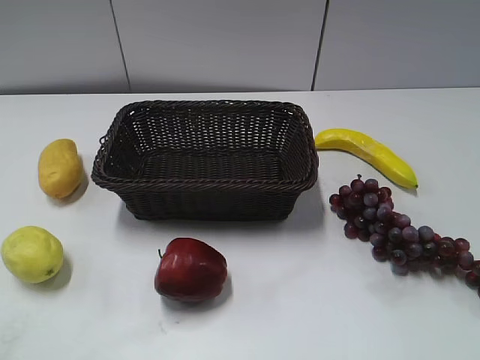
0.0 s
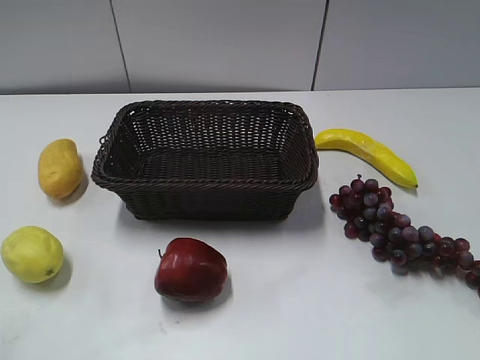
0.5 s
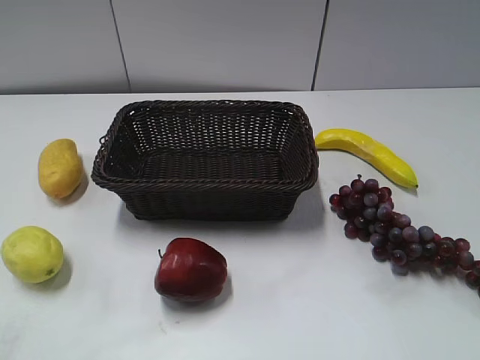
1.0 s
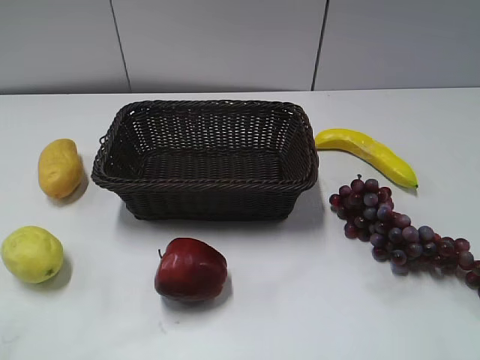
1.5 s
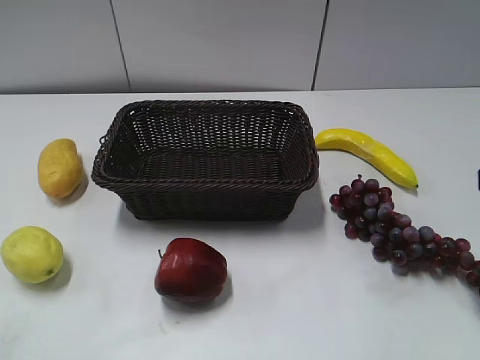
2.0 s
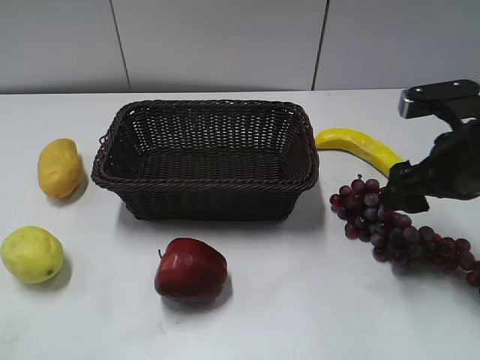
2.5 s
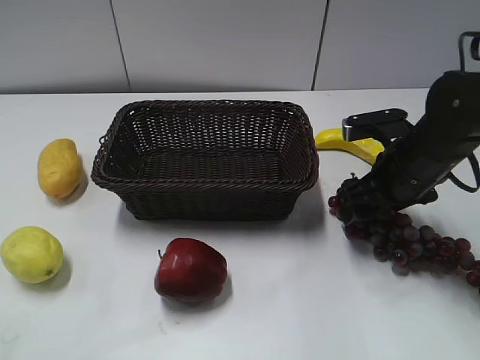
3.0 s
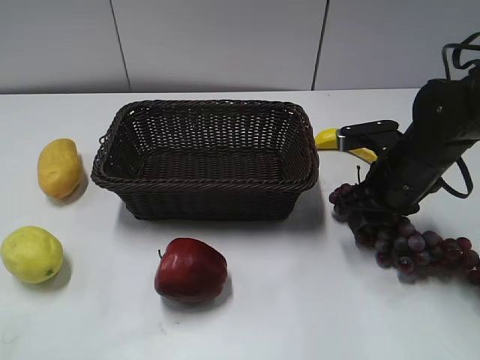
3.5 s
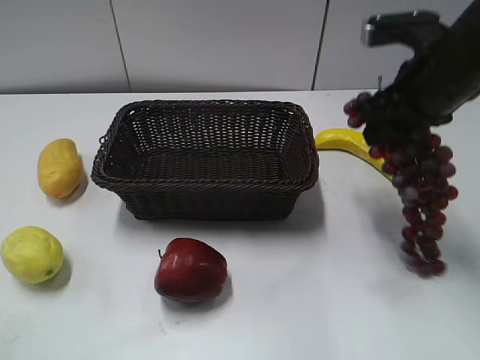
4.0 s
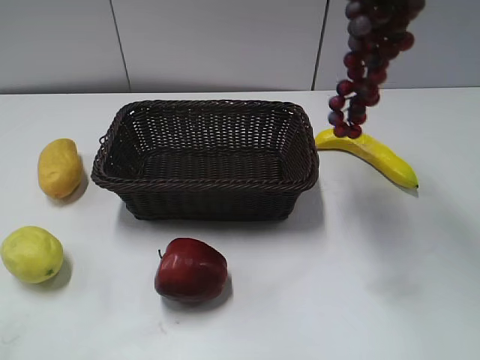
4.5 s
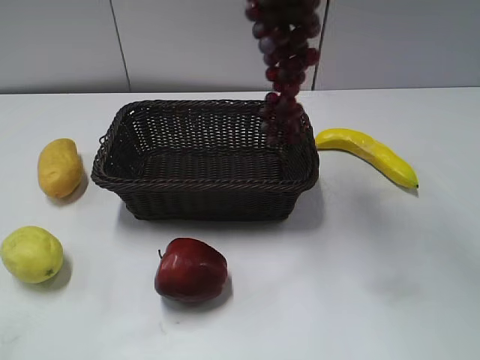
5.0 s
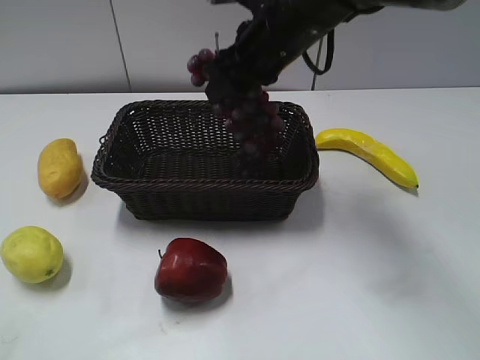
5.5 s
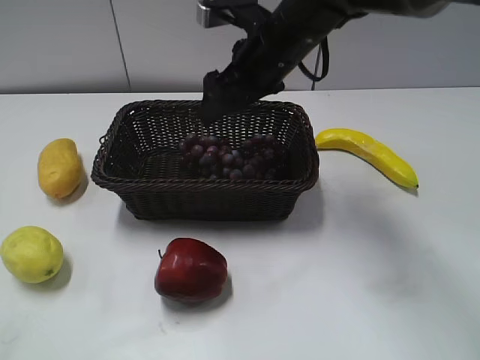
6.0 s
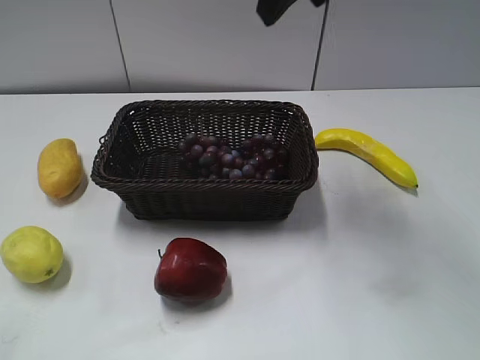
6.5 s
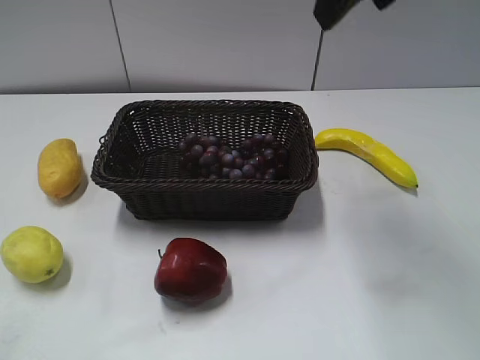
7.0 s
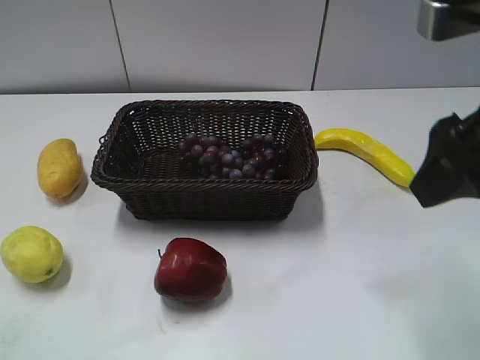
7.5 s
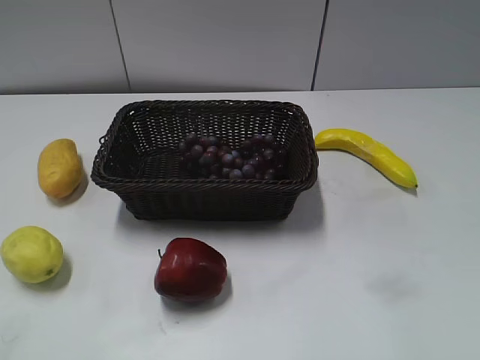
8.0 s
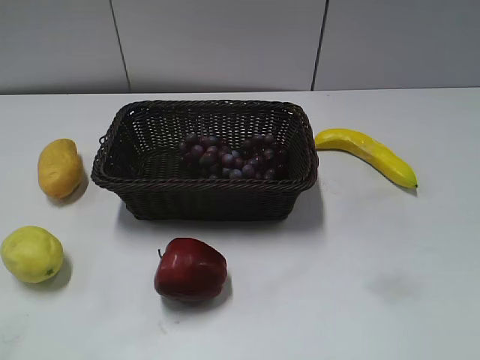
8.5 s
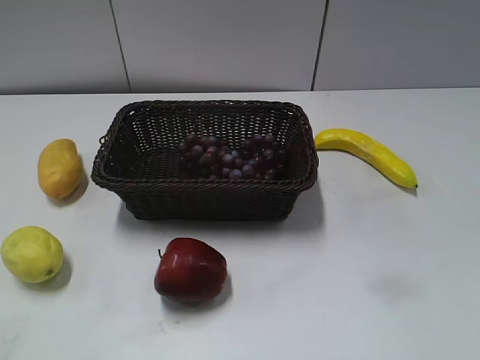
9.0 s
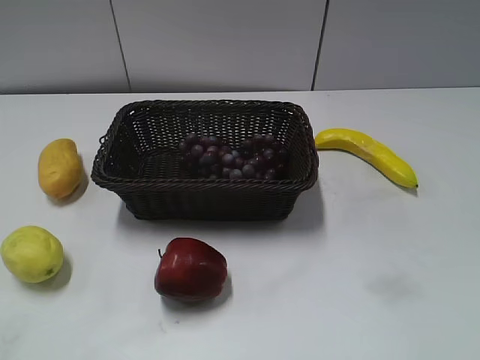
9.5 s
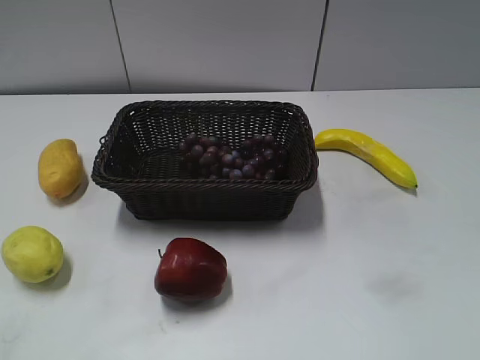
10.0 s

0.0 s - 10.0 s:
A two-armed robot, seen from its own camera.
Step, 2.0 s - 3.5 s: Grasp the grape with right gripper.
Step, 4.0 s - 6.0 s: Place the grape in the basket with right gripper.
2.0 s - 4.0 s: The right gripper heads forward and to the left, covering roughly 20 cm, and closes up.
4.0 s - 6.0 s: The right gripper is displaced to the left and forward by approximately 15 cm, moves about 15 cm upward and comes back, and opens its fingers.
6.0 s - 8.0 s: The right gripper is displaced backward and to the right by some 35 cm.

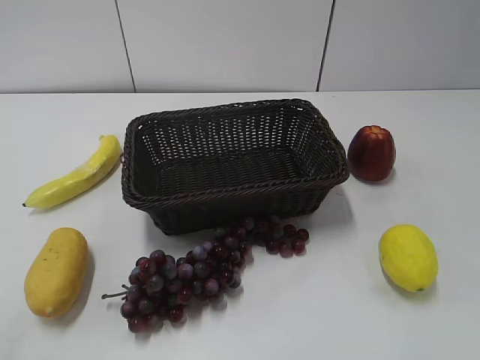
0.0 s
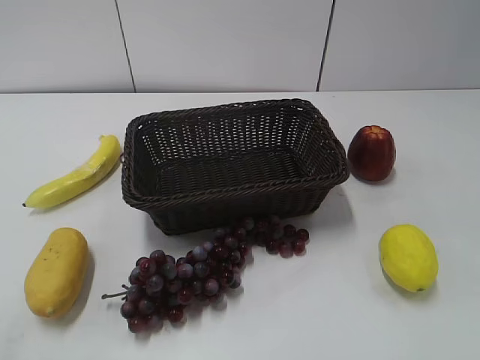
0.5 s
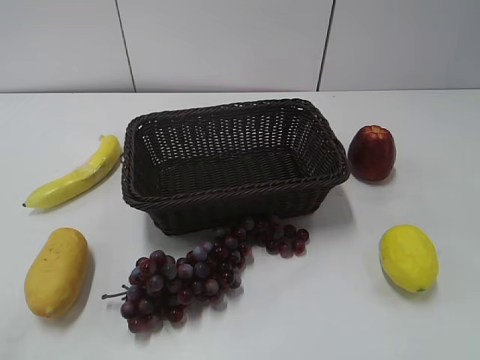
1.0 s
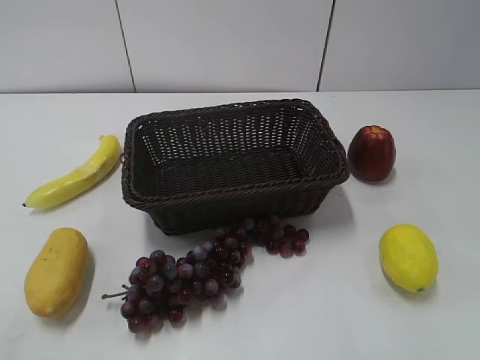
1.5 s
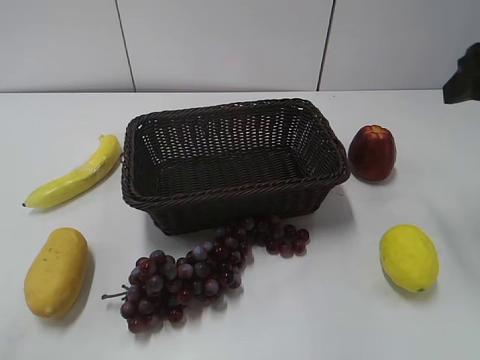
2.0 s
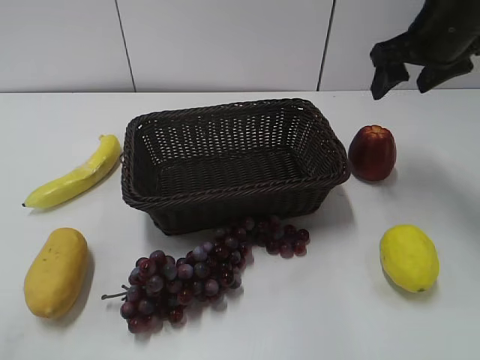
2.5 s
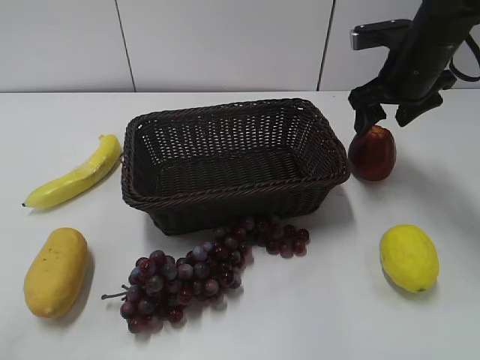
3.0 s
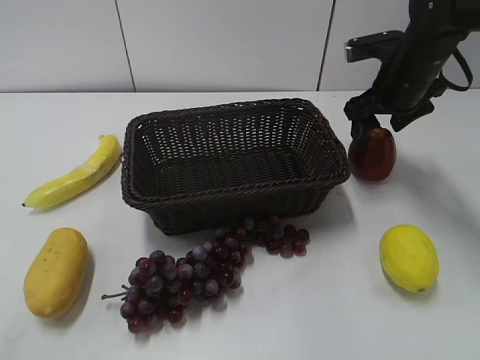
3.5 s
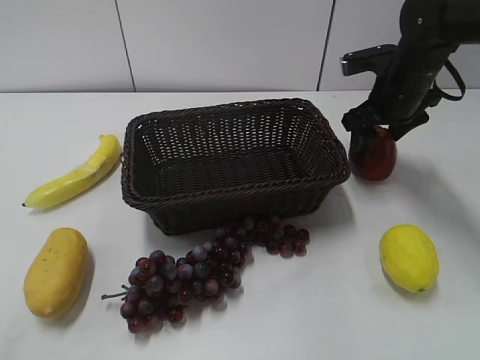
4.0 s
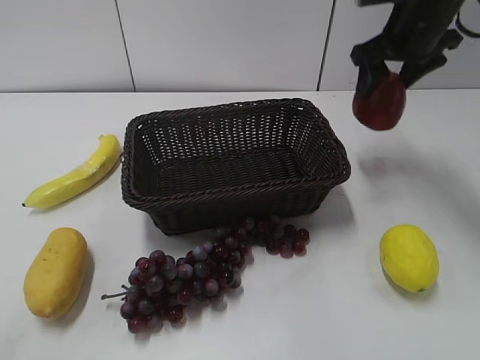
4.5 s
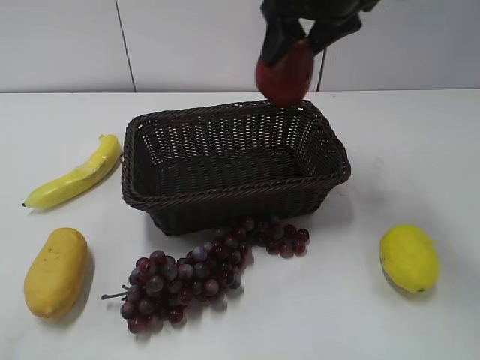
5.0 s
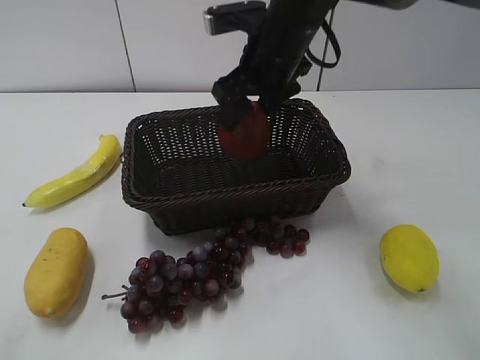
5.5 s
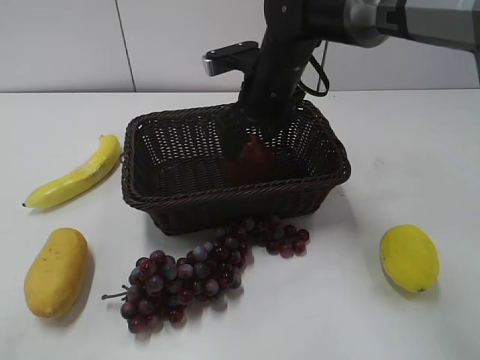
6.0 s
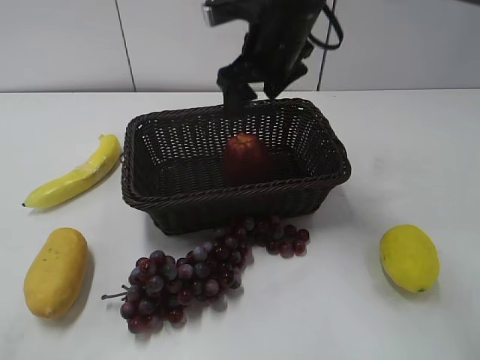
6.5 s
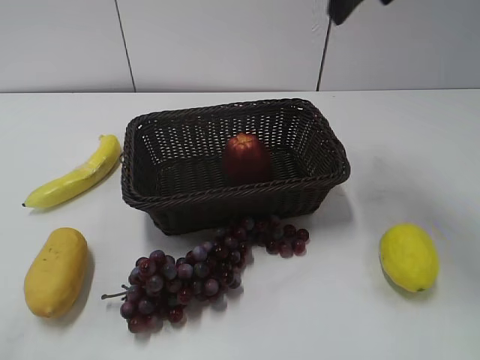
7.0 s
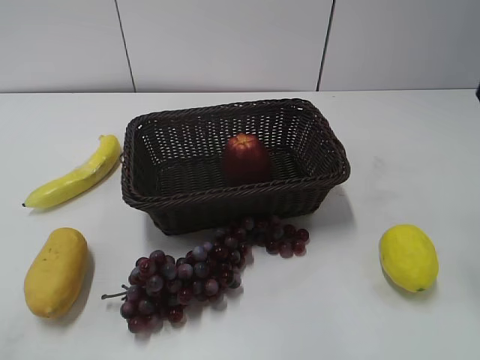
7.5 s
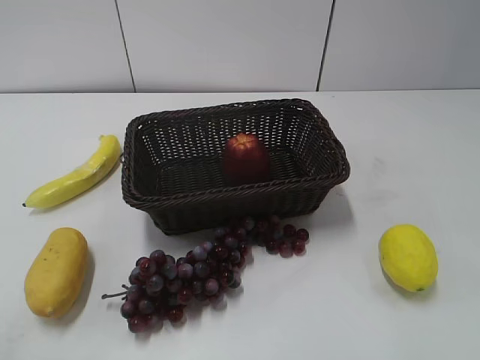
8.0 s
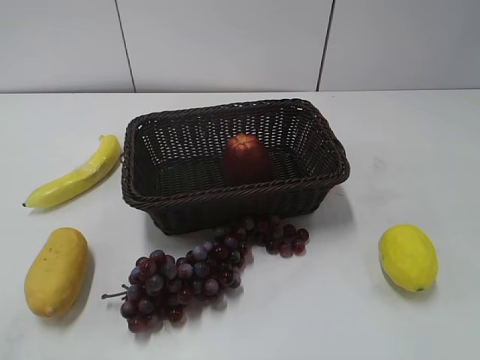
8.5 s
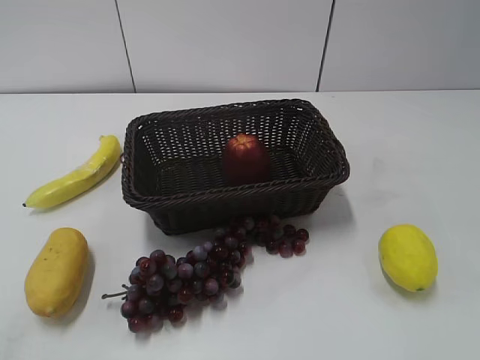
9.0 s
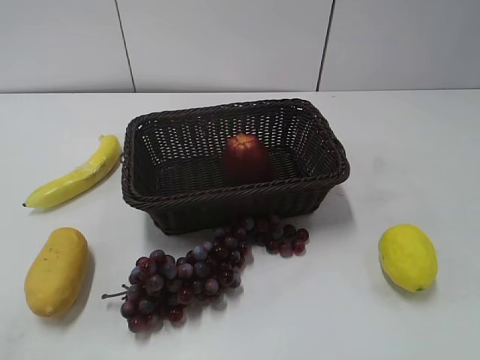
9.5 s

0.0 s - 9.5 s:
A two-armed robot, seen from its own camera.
Step, 2.0 s - 3.5 s: Grasp the apple with right gripper.
Step, 4.5 s - 6.0 s: Place the apple in the basket with right gripper.
2.0 s - 4.0 s: The right gripper travels forward and downward by some 20 cm.
4.0 s - 5.5 s: The right gripper is displaced to the left by approximately 15 cm.
5.5 s - 7.5 s: The right gripper travels to the right, backward and upward by about 30 cm, and opens, then closes once more.

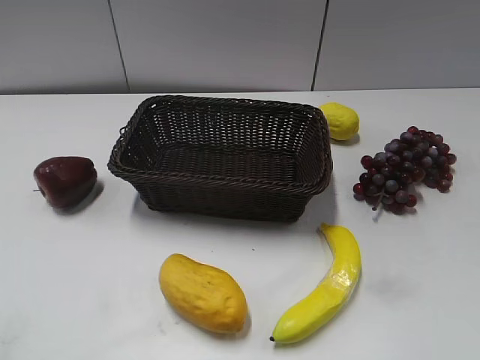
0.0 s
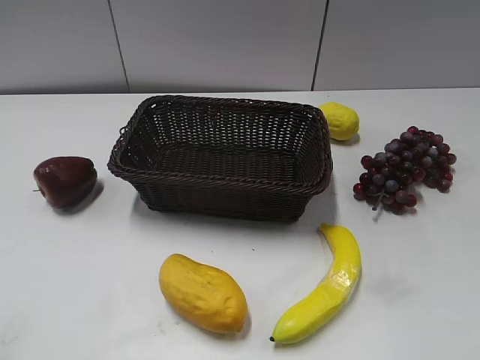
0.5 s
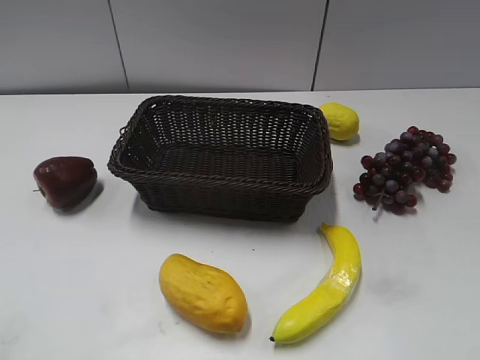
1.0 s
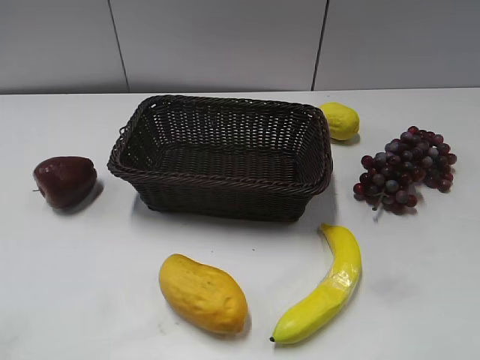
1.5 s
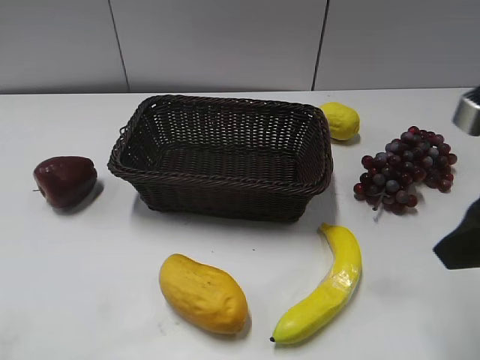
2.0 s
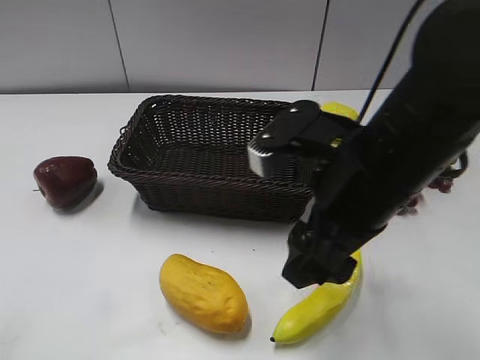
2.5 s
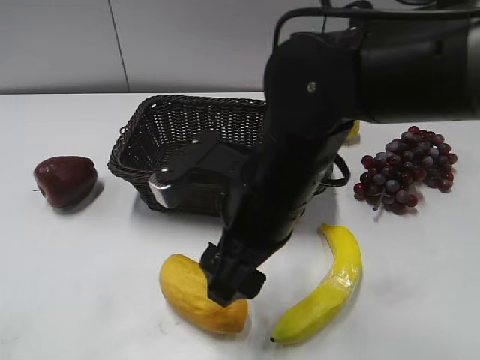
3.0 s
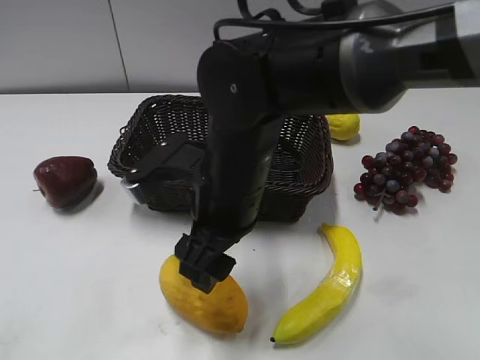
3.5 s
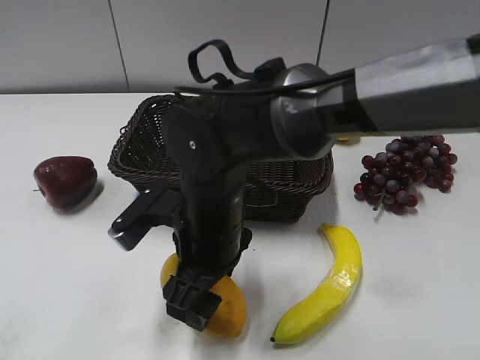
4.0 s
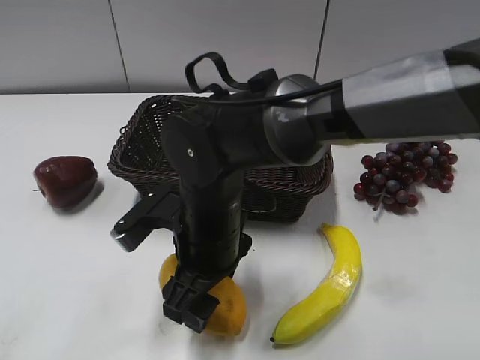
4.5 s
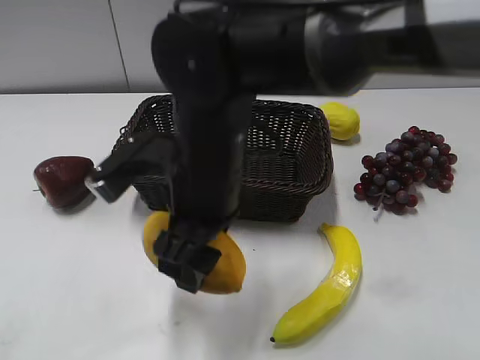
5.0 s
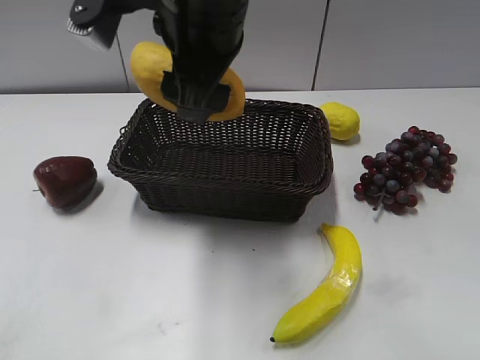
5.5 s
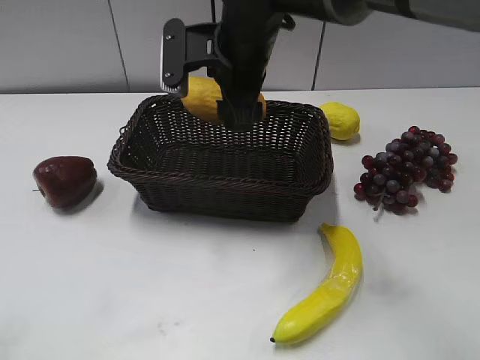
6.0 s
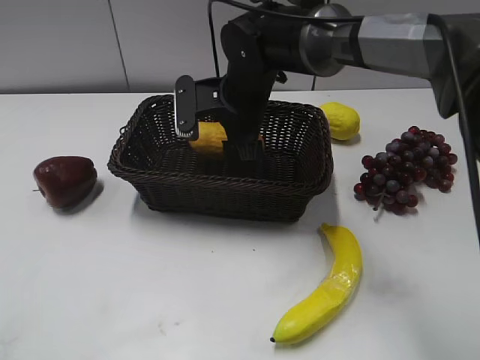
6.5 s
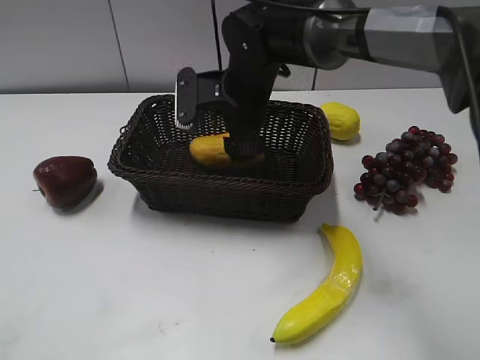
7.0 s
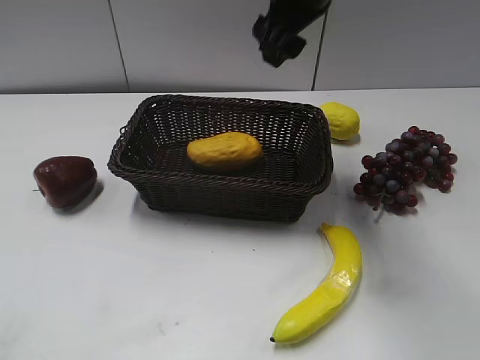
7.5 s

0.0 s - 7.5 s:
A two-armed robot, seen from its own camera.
Step, 2.0 s - 4.5 s: Grasp the mango with right gripper.
Step, 5.0 s - 6.5 s: Place the mango in the basket with right gripper.
2.0 s - 4.0 s: The right gripper is displaced to the left and downward by approximately 30 cm.
4.0 s - 5.5 s: The right gripper moves upward, some 20 cm.
5.5 s - 7.5 s: The right gripper moves to the right and forward, roughly 15 cm, and travels downward and back again, approximately 15 cm each way.
